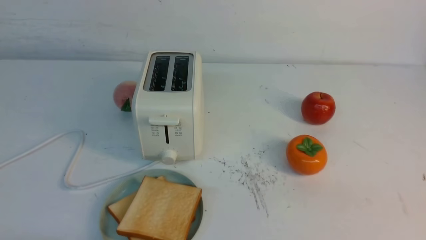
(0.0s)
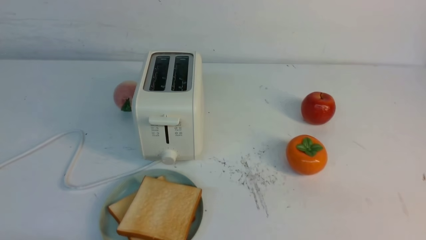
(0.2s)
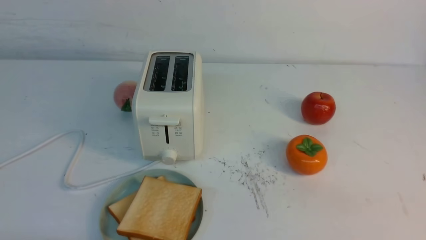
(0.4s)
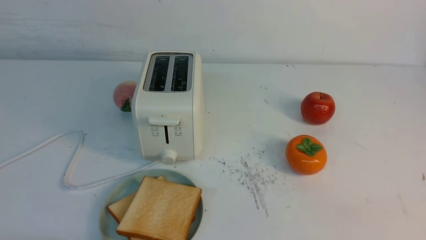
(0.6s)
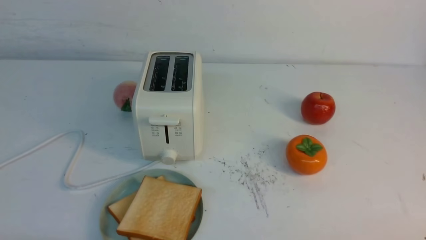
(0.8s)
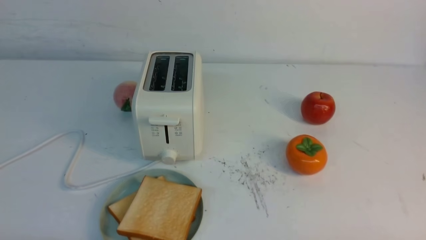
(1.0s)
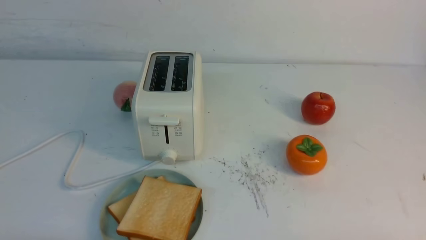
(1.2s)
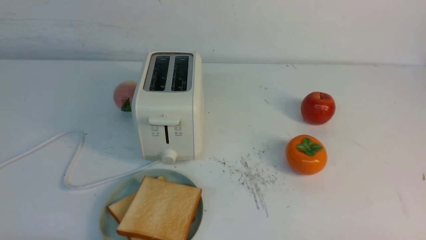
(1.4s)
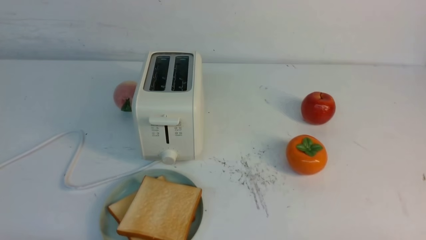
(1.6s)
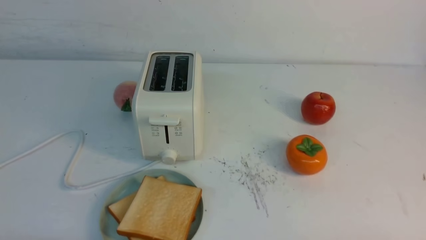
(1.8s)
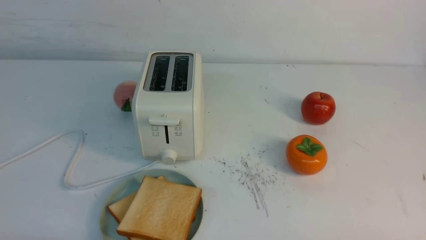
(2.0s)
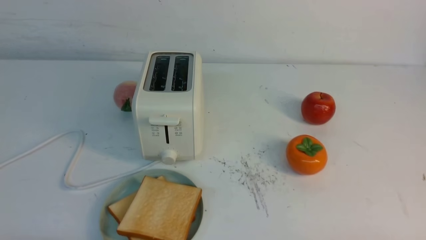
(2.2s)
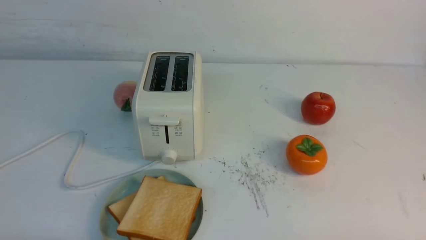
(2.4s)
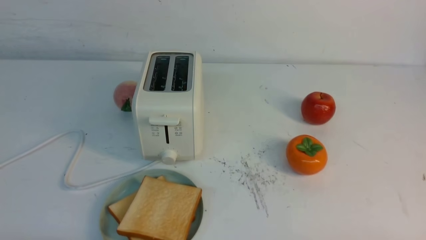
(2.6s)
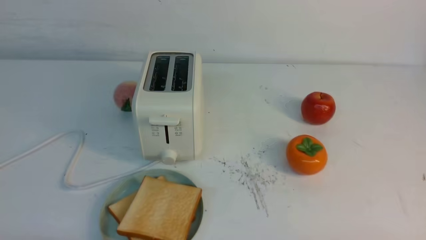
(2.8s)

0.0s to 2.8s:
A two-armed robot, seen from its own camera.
Task of the whole recording: take toasted bread from bread machine on white table place on plate.
1.4s to 2.8s: The two grippers keep their place.

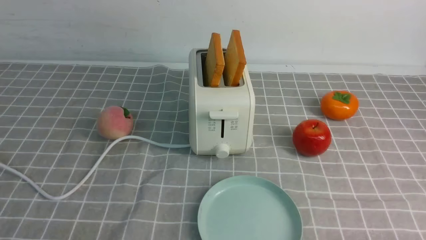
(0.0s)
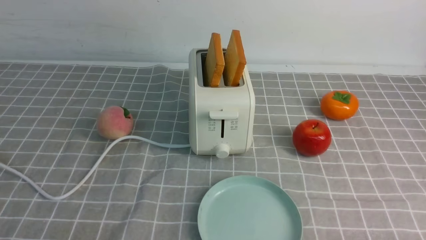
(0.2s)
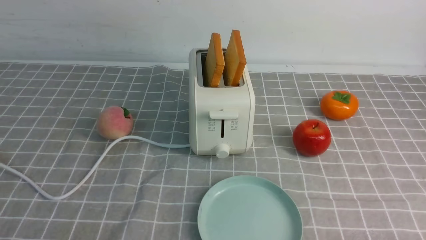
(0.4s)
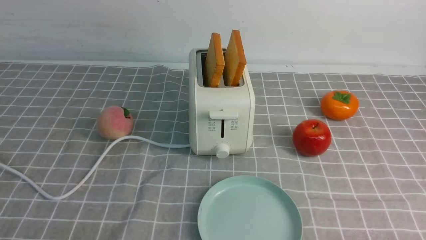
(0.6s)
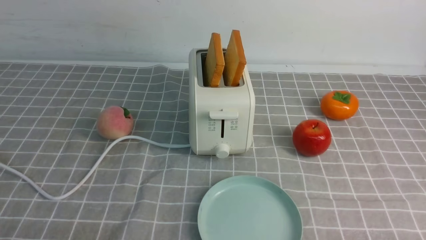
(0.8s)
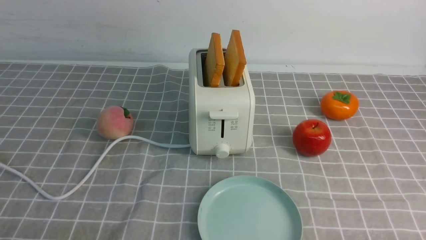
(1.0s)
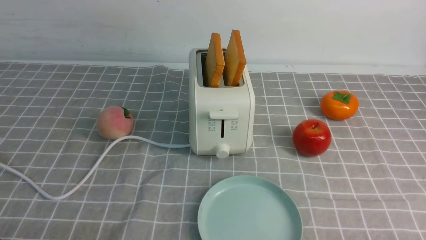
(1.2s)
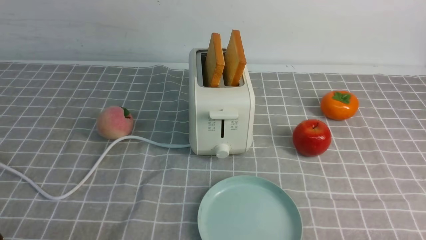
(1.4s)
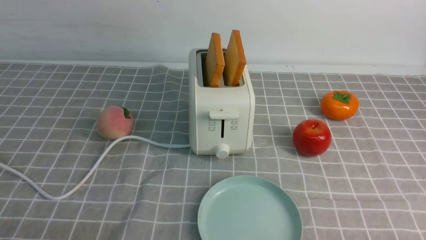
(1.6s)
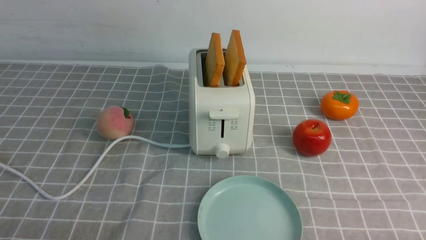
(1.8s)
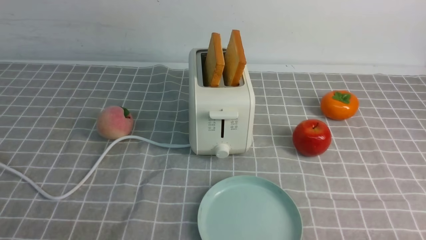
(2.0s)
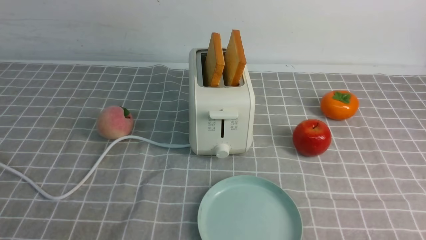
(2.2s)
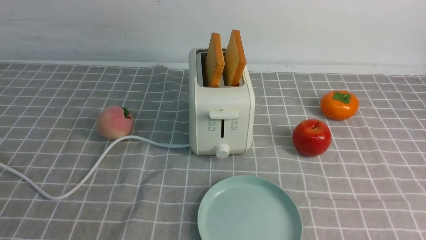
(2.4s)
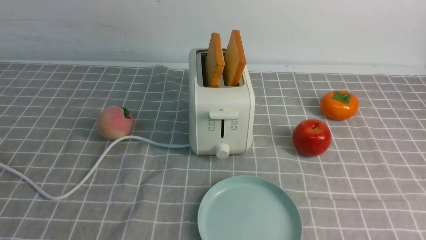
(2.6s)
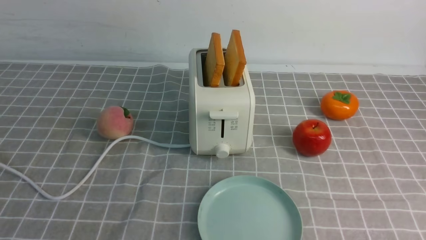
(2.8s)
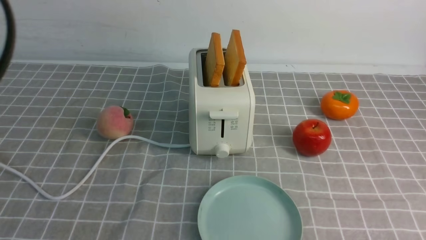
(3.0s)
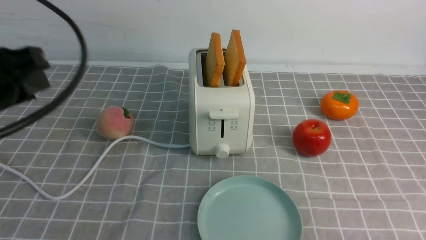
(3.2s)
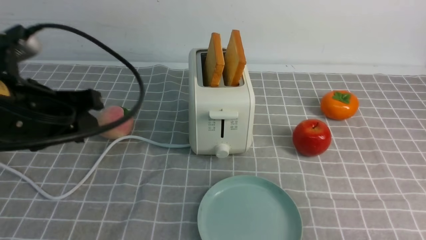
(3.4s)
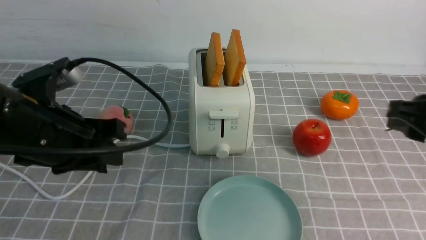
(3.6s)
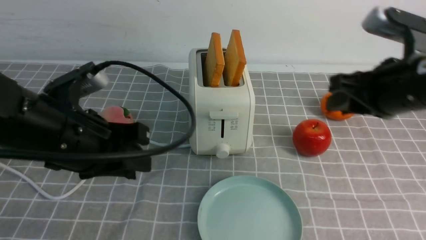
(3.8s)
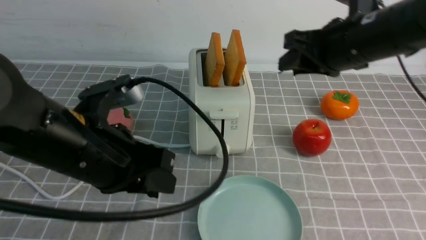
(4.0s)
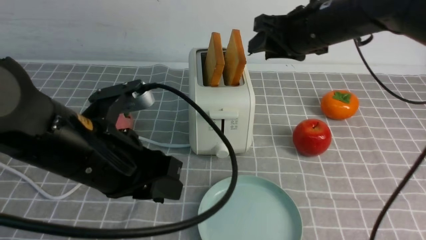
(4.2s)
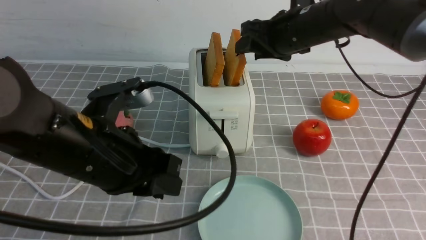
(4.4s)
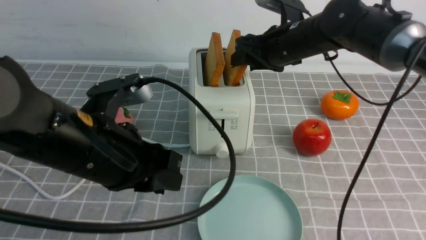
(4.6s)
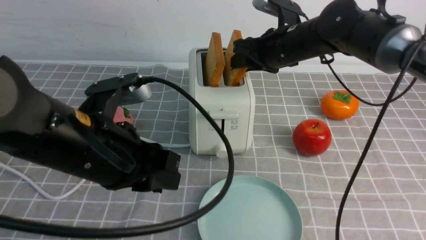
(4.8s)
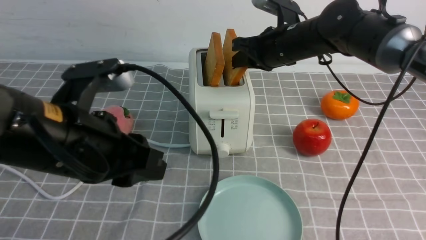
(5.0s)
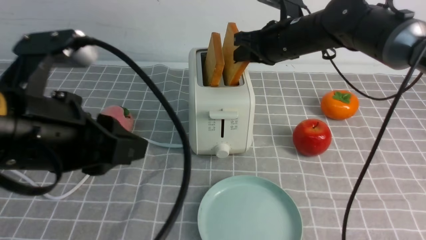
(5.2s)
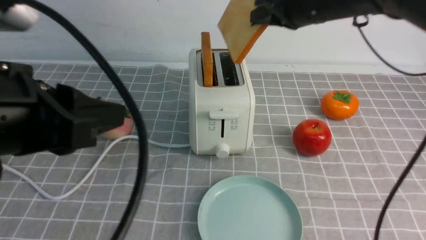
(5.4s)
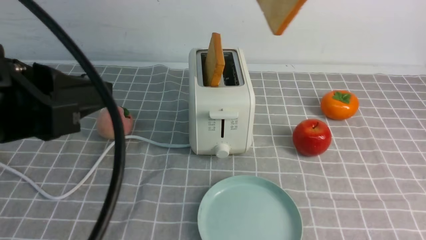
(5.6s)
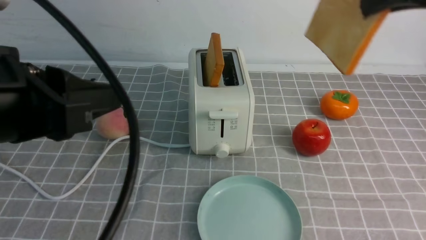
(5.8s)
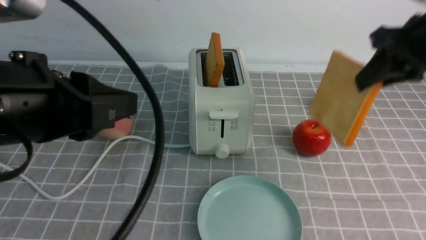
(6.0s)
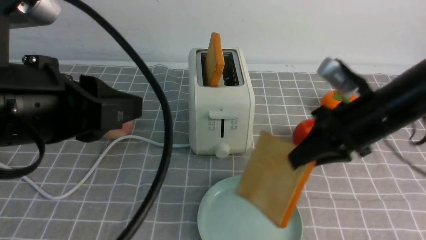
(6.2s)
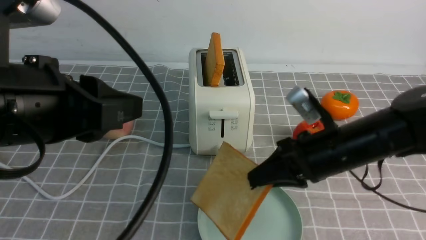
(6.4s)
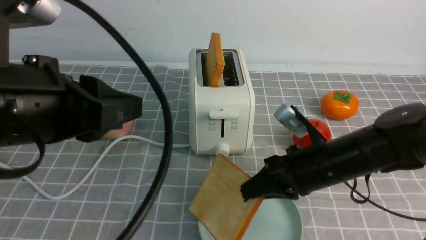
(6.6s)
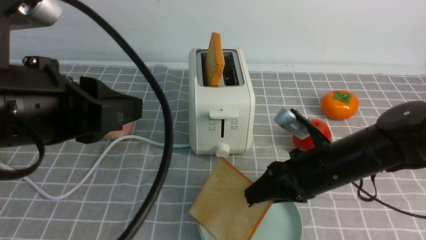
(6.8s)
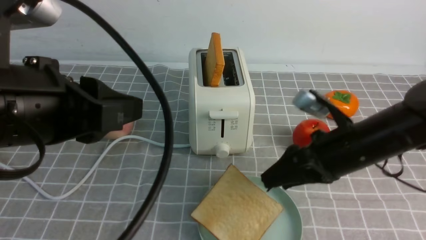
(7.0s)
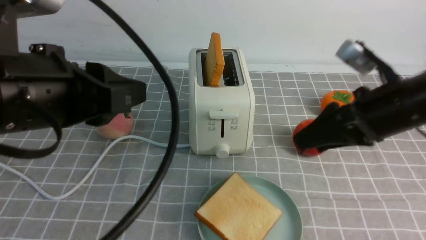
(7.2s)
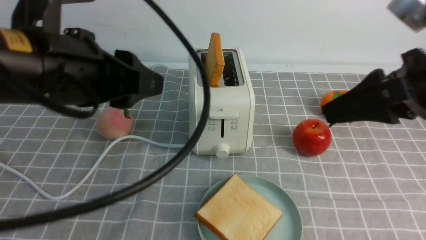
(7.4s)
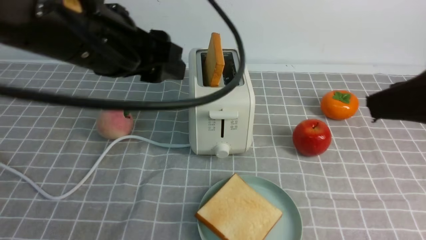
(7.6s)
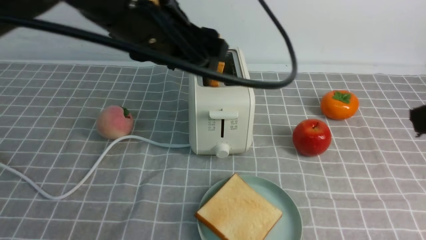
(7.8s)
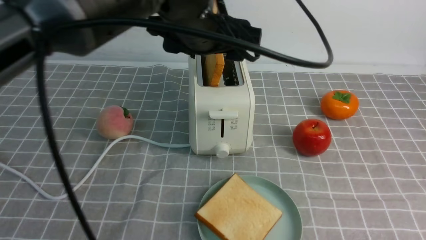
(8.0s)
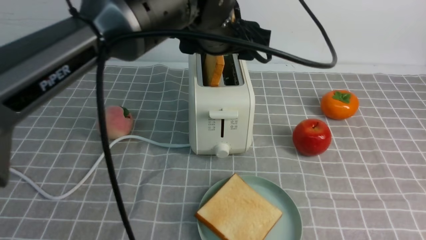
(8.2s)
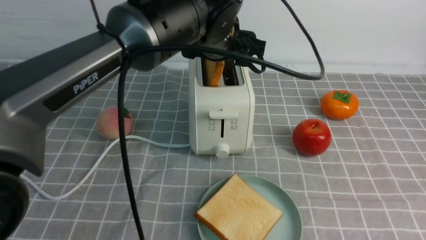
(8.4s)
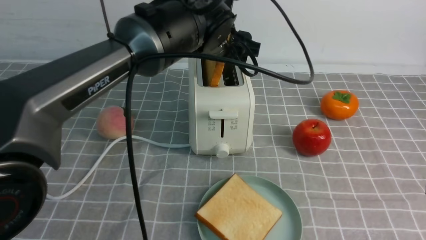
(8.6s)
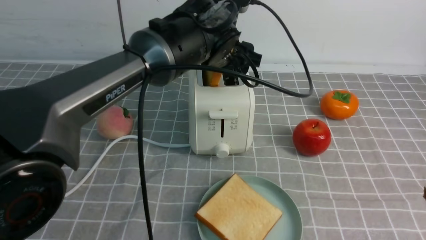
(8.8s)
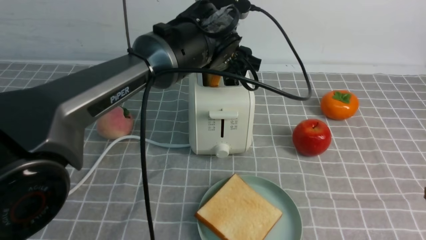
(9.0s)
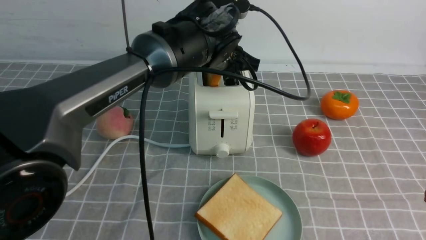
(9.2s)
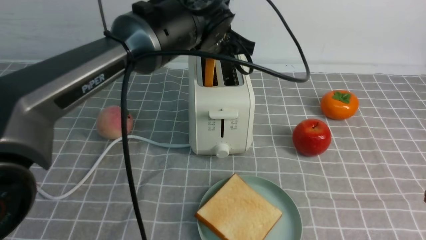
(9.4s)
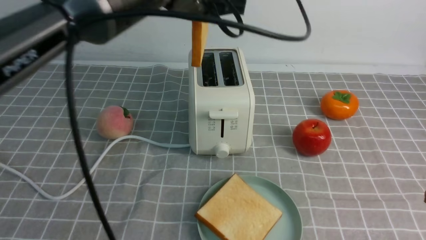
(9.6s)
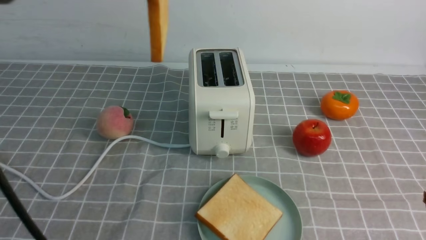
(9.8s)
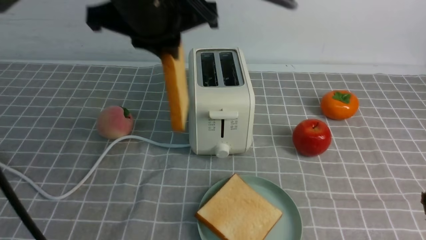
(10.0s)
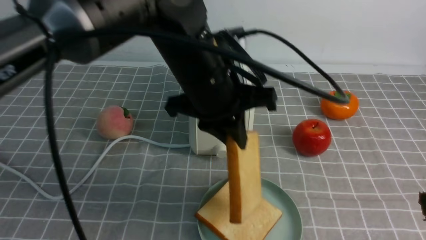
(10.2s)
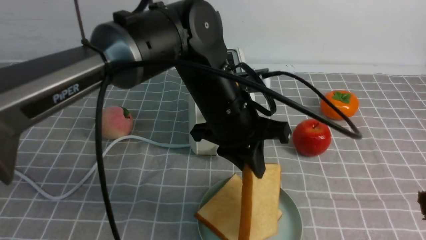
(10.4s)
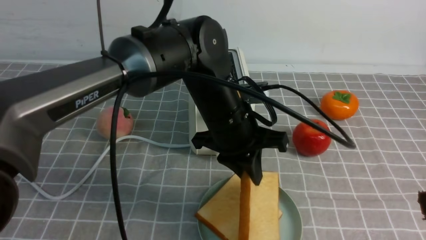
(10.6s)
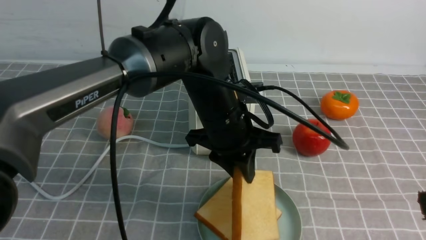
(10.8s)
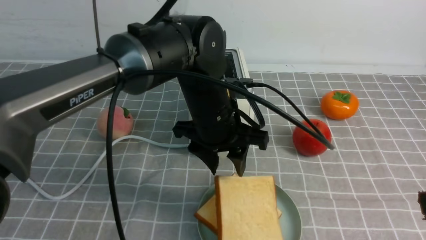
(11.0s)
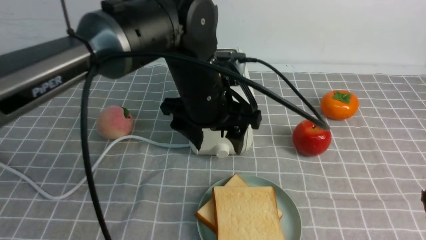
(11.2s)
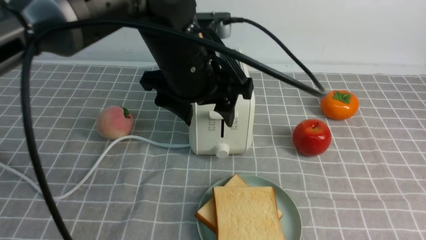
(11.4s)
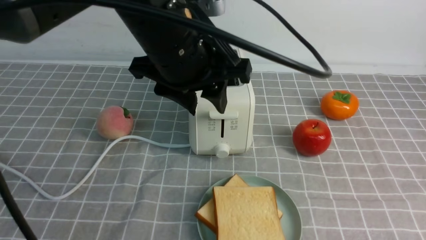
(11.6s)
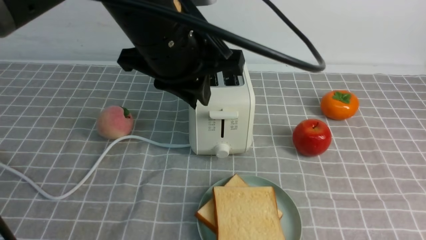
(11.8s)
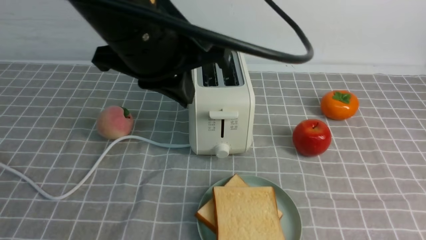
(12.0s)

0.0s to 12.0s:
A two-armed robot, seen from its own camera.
Task of the whole recording: take toasted bread from bread machine on grey coffee table place on plate.
Step, 0.0s to 5.4s: use the right arm to take out a slice of bread.
Step, 5.6s to 7.0s: use the right arm to put a slice of bread into the plate.
Step, 7.4s to 9.6s: use the left arm to take out a slice of bread.
Step, 9.8s to 11.2s: use the left arm to put a slice of bread into the empty plate.
1.6s to 3.0s: The left gripper shifts some 25 cm upward and forward.
3.0s to 4.4s: The right gripper moves forward and to the left, about 35 cm. The left gripper goes some 15 cm to the right and downward.
4.4s to 6.0s: The right gripper travels to the right and backward by roughly 15 cm, reaches about 10 cm upward, then returns, and closes, while the left gripper is displaced upward and backward by some 10 cm.
6.0s to 7.6s: The left gripper shifts some 10 cm forward and to the right, and opens its fingers. The right gripper is displaced backward by approximately 15 cm, goes downward and returns, roughly 15 cm each way, and opens.
7.6s to 9.0s: The right gripper heads backward and downward, covering roughly 10 cm; the left gripper shifts about 20 cm forward, to the right and downward.
9.0s to 10.4s: The left gripper is displaced backward by some 10 cm, reaches some 15 cm upward, then returns, and closes its fingers.
10.4s to 12.0s: The left gripper heads upward, to the left and backward, covering some 15 cm, and opens and closes again. Meanwhile the right gripper closes.

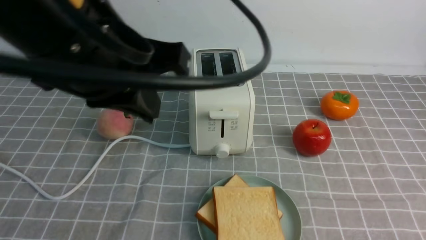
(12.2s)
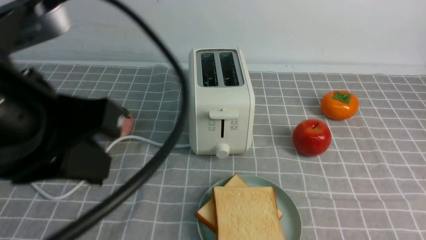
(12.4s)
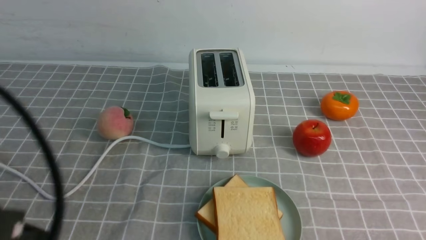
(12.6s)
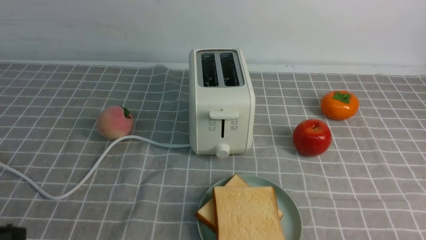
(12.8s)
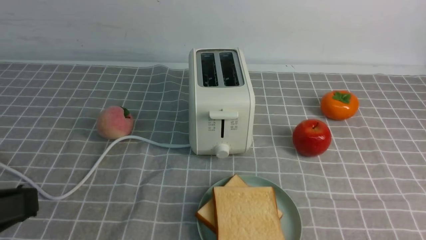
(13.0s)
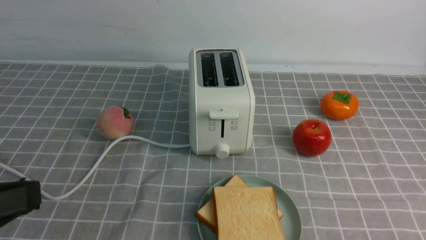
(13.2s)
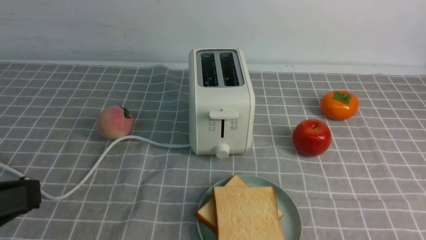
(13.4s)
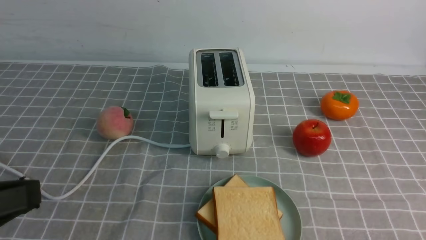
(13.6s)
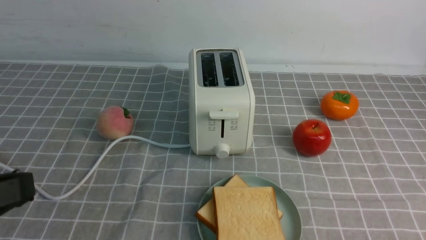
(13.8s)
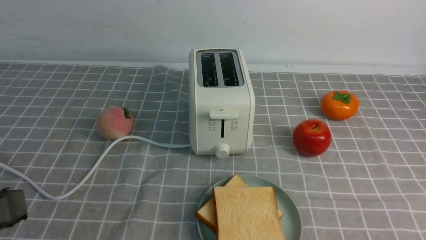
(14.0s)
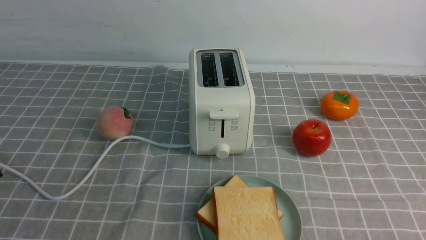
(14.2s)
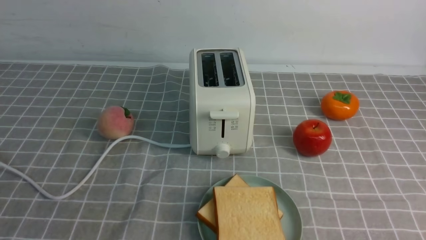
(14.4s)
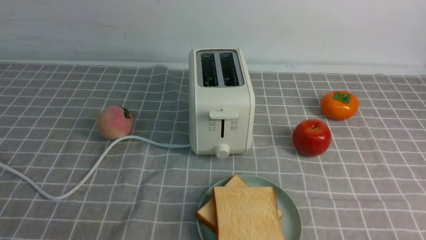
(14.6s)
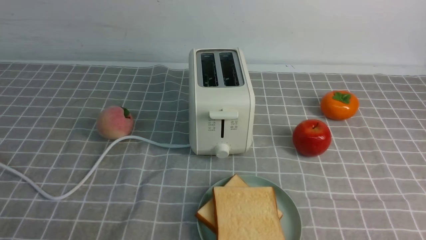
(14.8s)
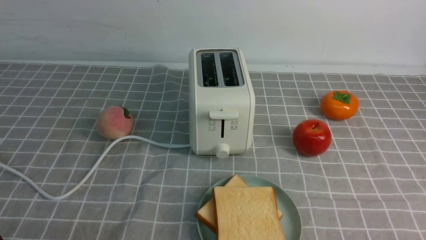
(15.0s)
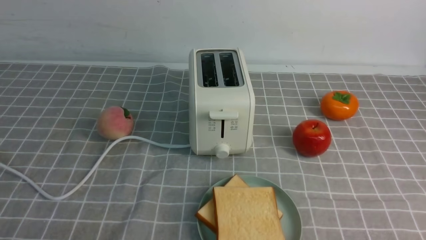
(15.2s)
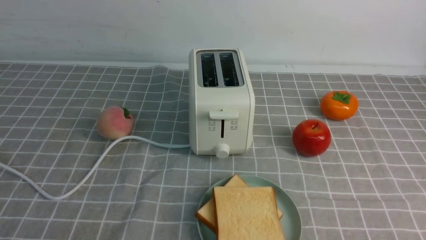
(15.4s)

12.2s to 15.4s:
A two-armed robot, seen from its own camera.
Task of the whole recording: take toasted bread from bread machine on grey coffee table place on plate.
12.2s to 13.8s: The right gripper shifts by some 5 cm, while the left gripper heads backward, to the left and downward, covering about 20 cm.
13.8s to 15.4s: The left gripper heads downward, covering some 20 cm.
